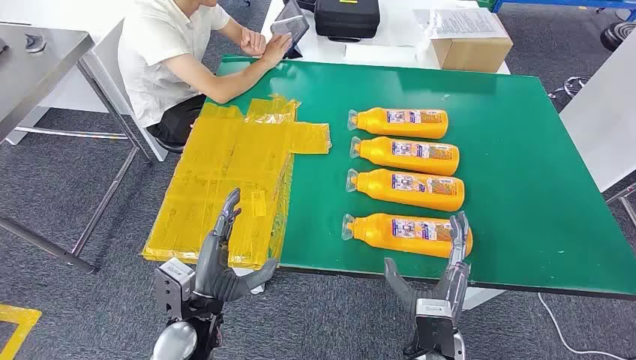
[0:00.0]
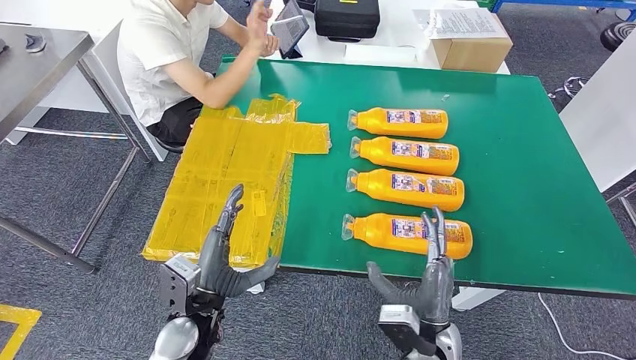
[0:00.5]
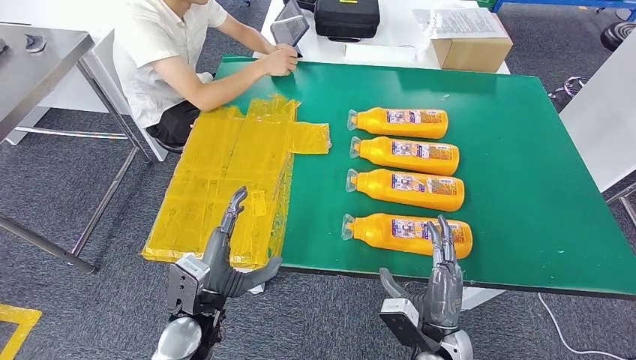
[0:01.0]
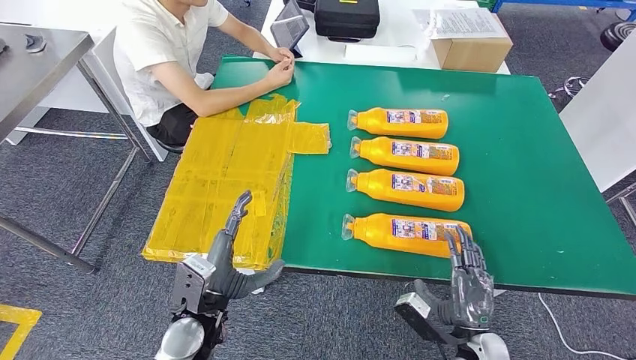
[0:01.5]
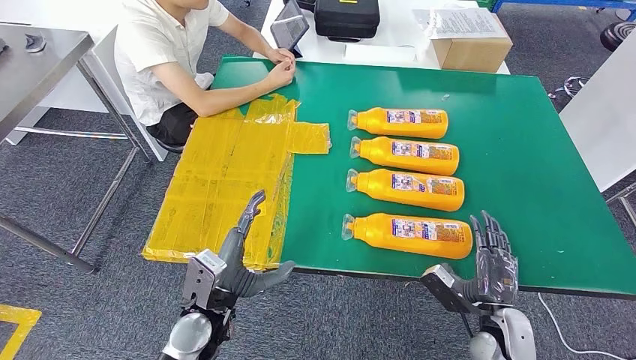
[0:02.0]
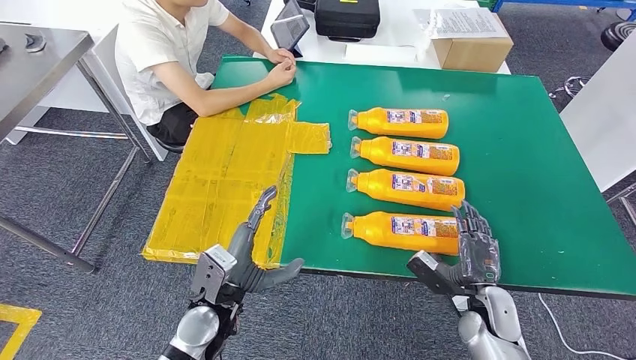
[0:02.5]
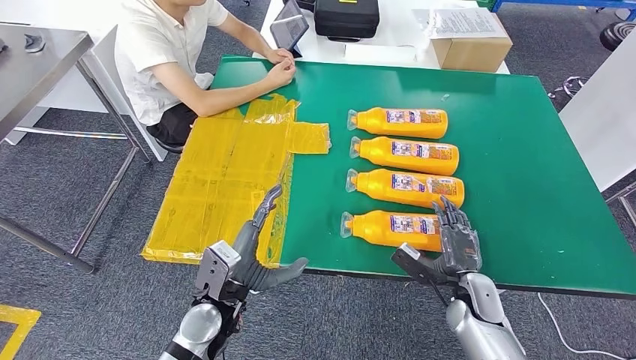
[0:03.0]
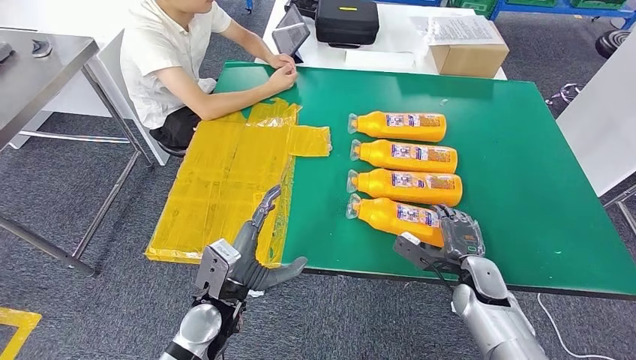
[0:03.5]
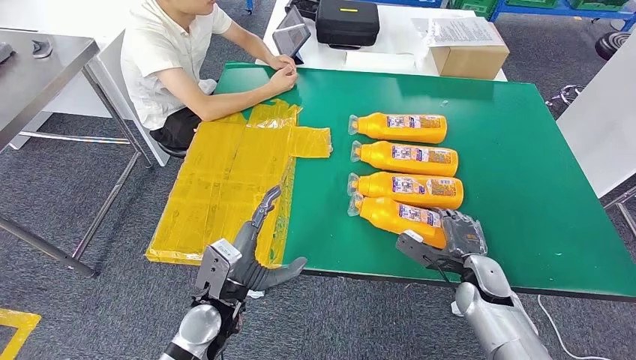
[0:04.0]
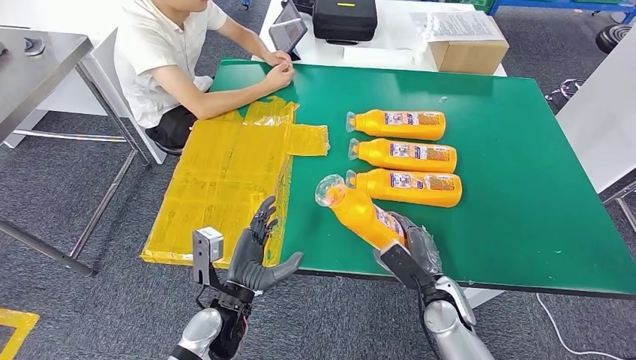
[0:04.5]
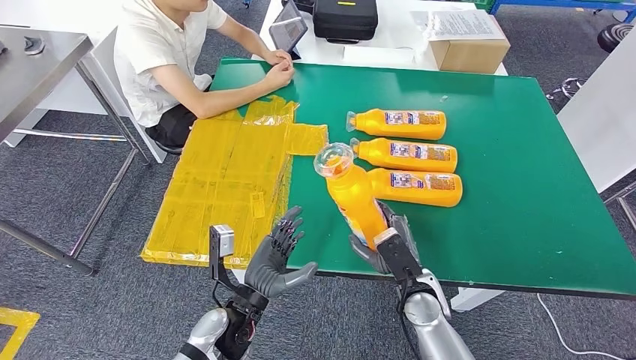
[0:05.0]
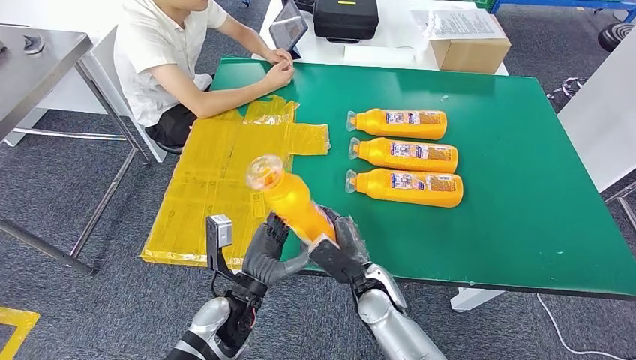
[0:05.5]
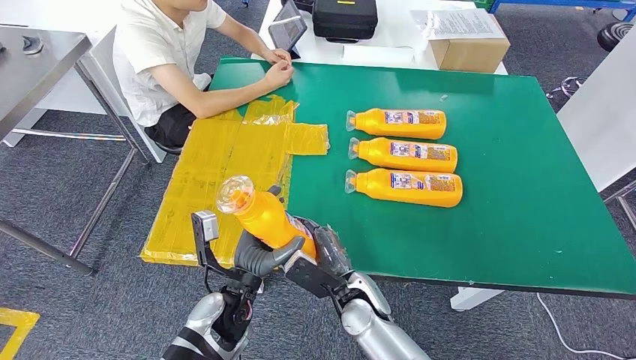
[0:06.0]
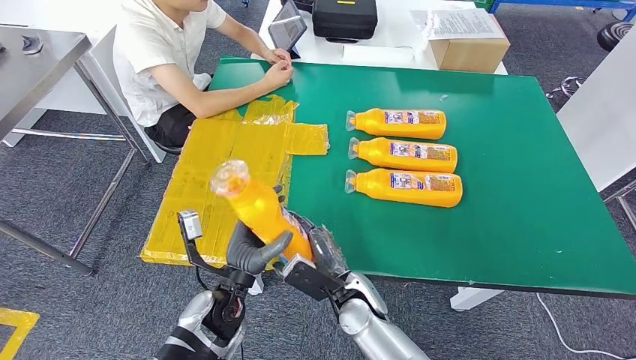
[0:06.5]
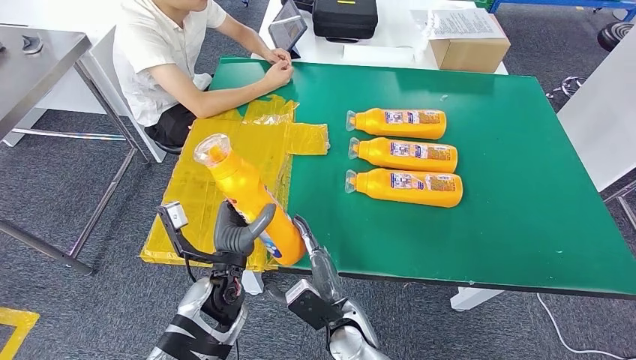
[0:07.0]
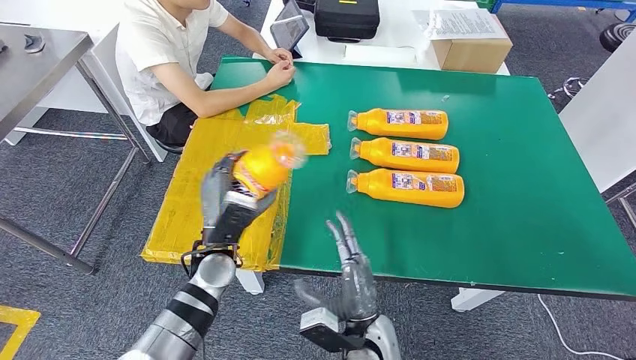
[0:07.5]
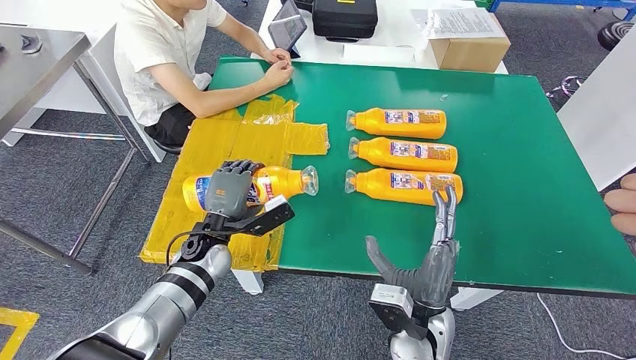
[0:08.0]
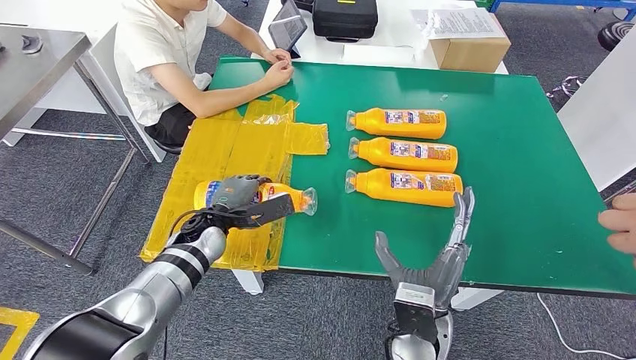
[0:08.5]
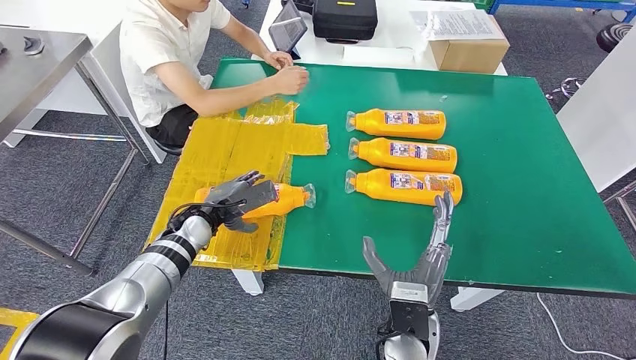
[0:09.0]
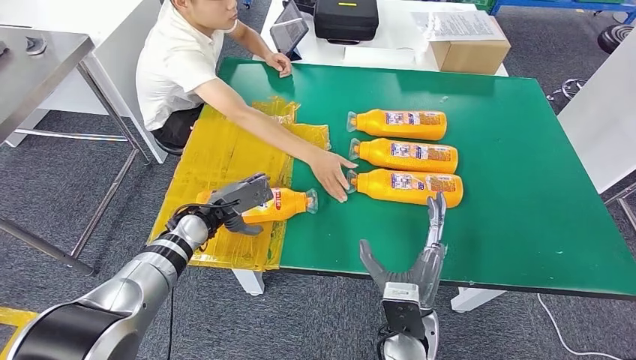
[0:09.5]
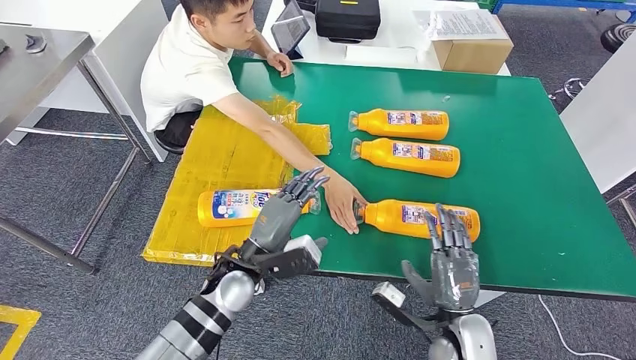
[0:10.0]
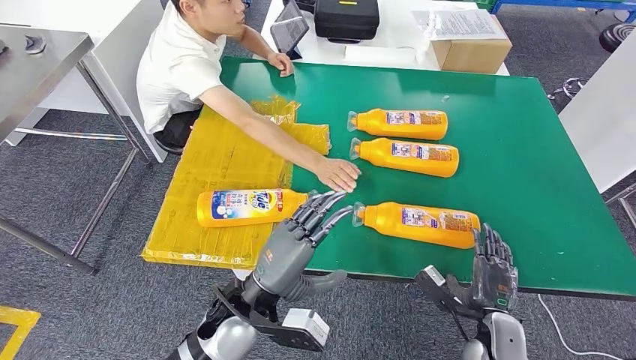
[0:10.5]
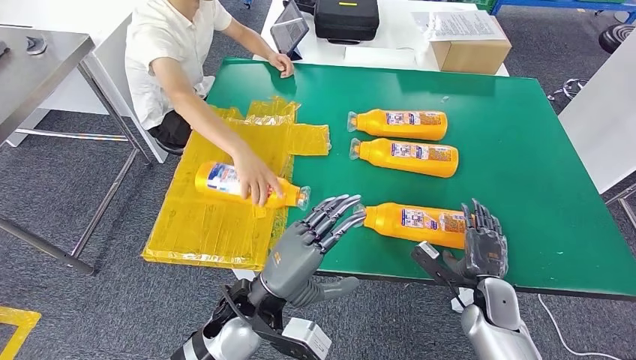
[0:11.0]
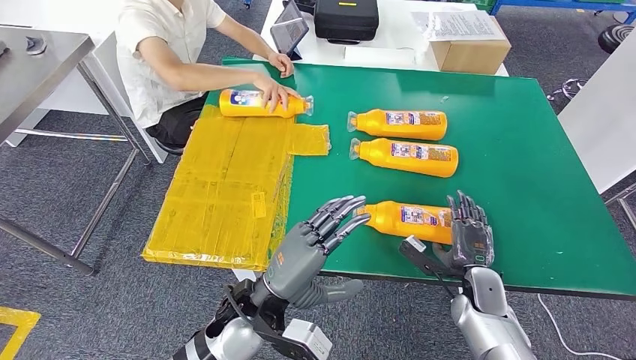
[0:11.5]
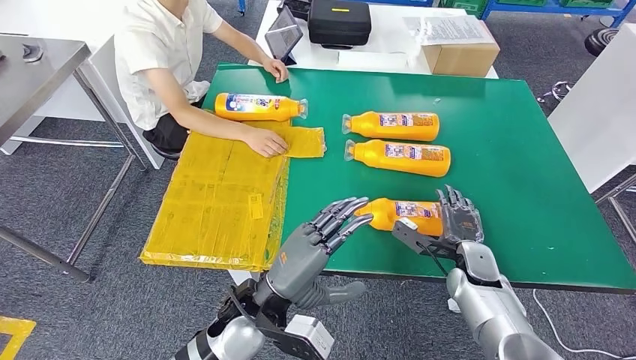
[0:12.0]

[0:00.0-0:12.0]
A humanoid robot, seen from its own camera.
Step, 0:00.0 to 0:06.0: Take the fast-moving consumer goods bottle from the table.
Step, 0:06.5 to 0:09.0: Flip the fast-moving consumer goods bottle to the front side.
0:06.0 to 0:08.0: The left hand heads forward and to the left, covering approximately 10 cm. Meanwhile the right hand travels to the right, upward and backward by roughly 10 cm.

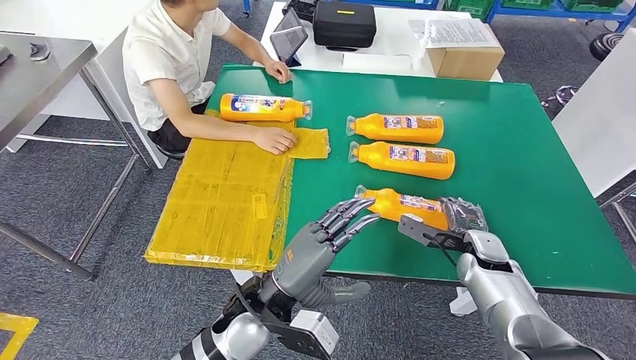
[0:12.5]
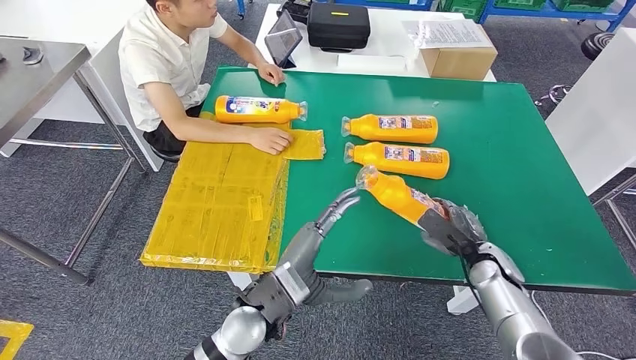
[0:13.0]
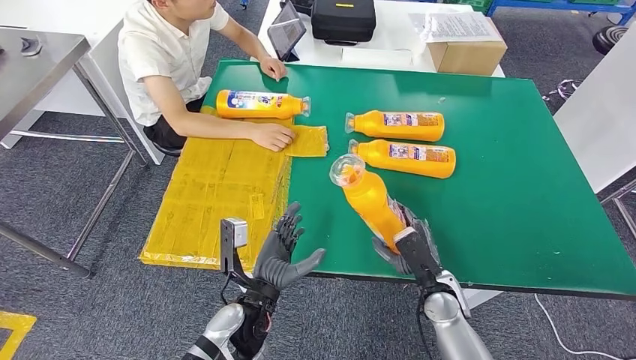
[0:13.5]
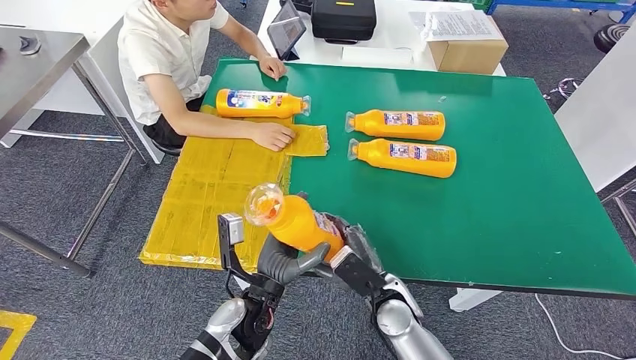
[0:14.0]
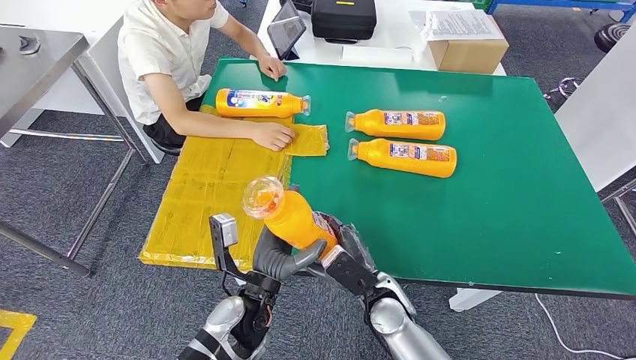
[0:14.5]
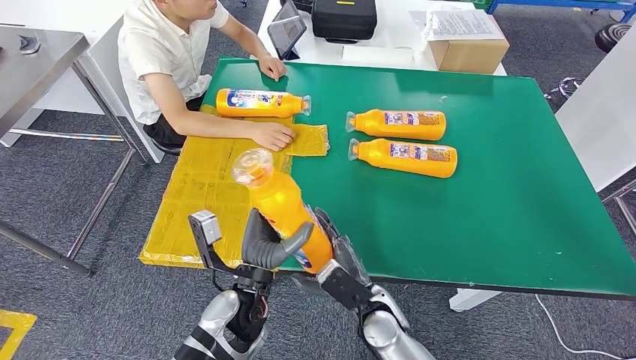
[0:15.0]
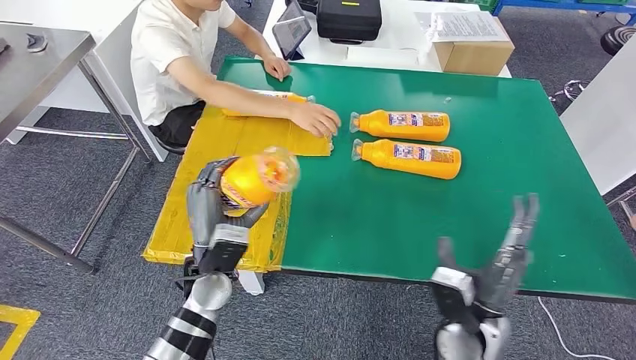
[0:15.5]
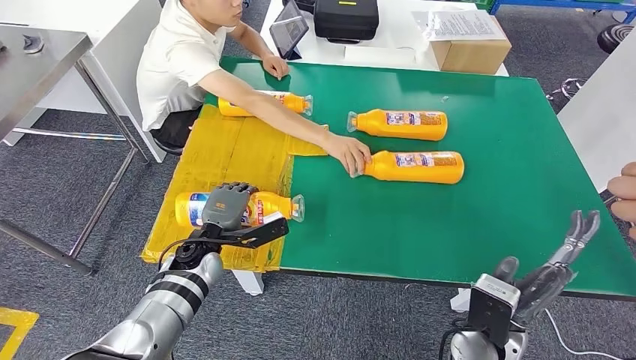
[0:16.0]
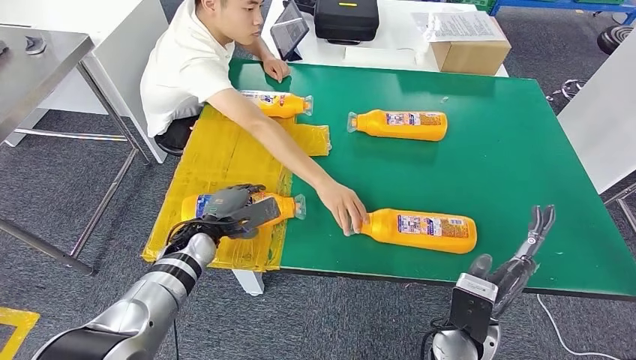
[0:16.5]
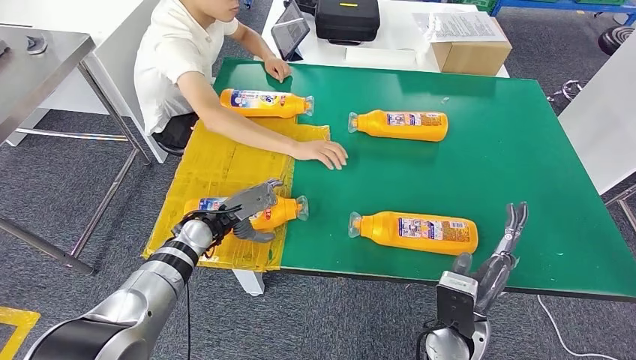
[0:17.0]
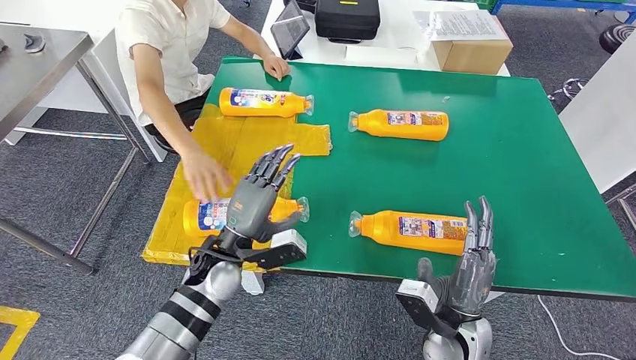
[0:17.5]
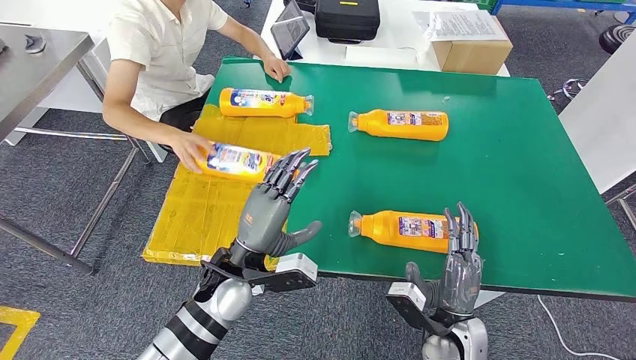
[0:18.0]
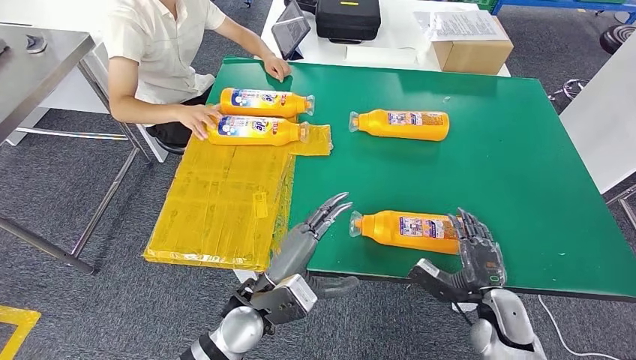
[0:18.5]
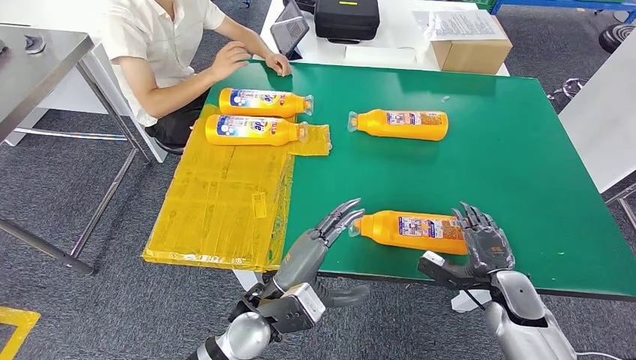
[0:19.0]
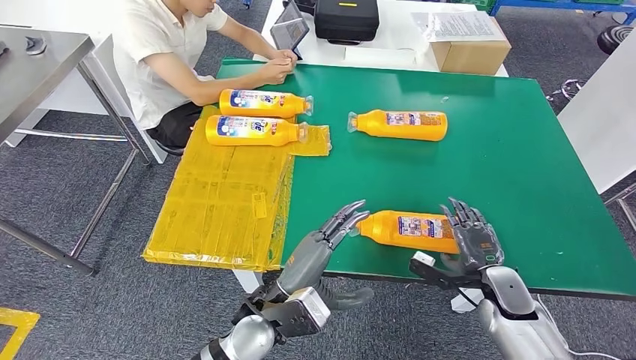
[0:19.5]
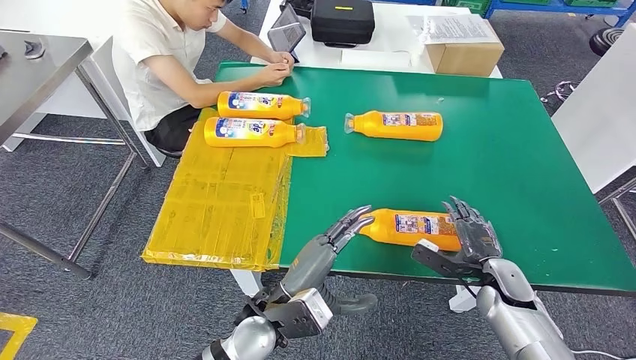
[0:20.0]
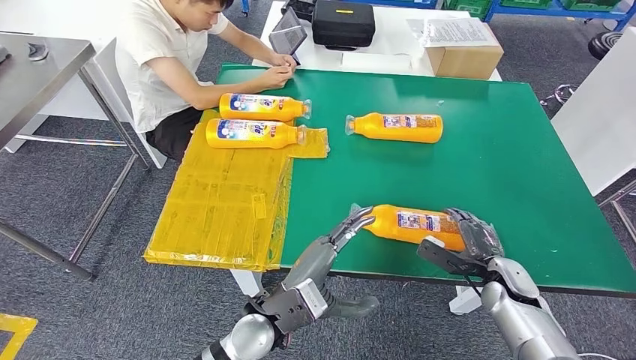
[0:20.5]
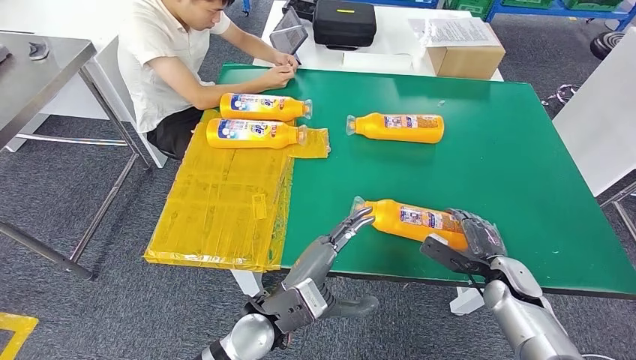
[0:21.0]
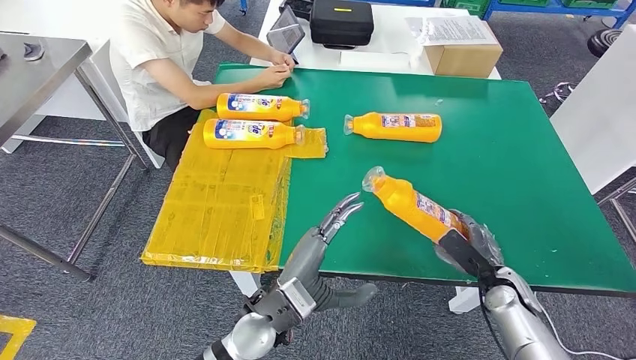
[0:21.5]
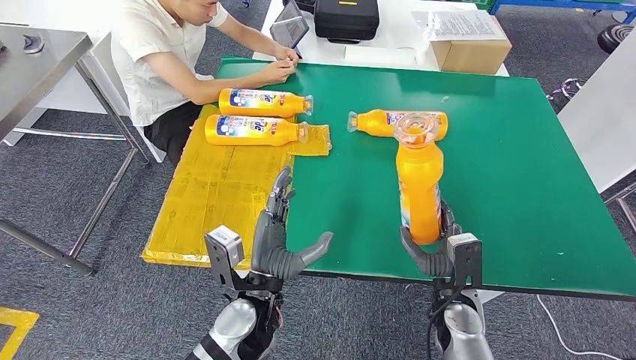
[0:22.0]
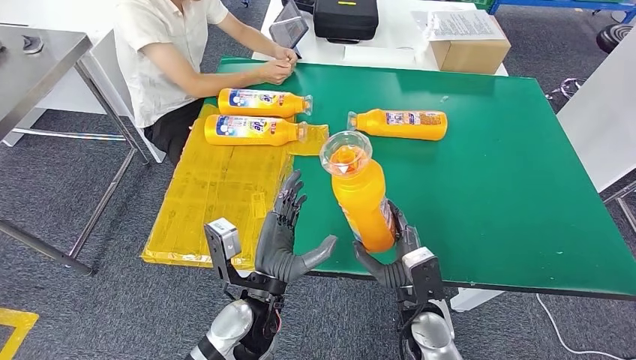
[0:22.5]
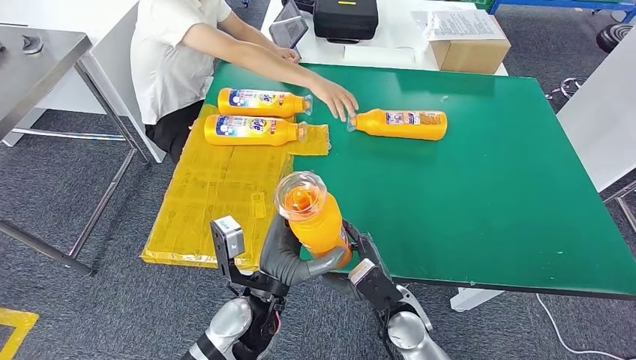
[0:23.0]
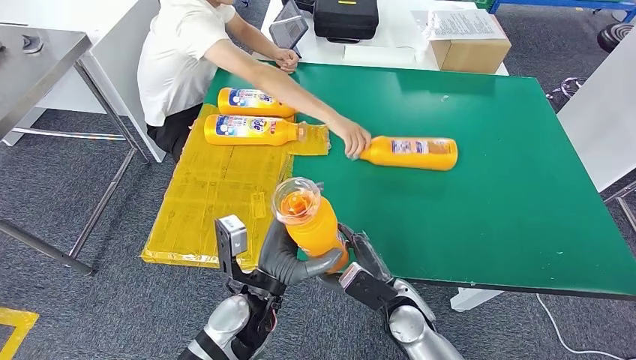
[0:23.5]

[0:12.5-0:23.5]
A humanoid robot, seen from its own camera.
Step, 0:14.5 to 0:17.0: Flip the fast-moving consumer goods bottle to the front side.
Step, 0:17.5 to 0:23.0: Pick up the fast-moving consumer goods bottle from the table.
